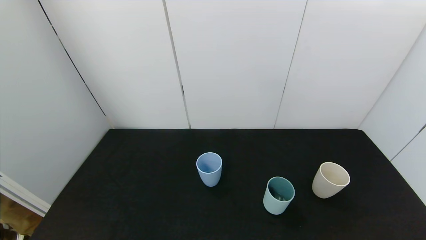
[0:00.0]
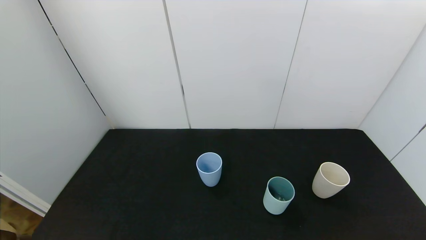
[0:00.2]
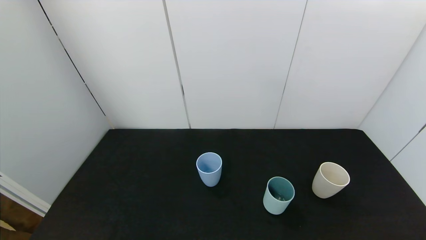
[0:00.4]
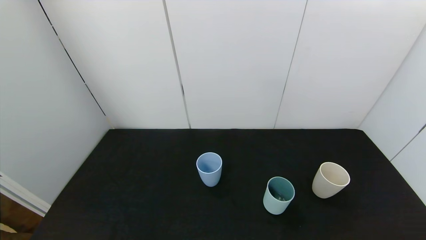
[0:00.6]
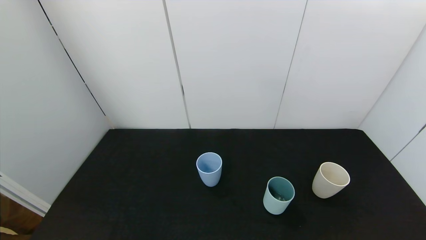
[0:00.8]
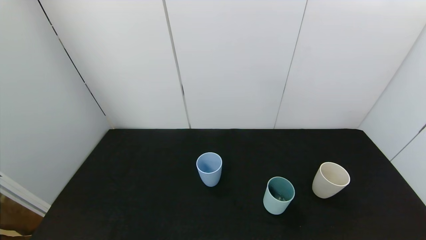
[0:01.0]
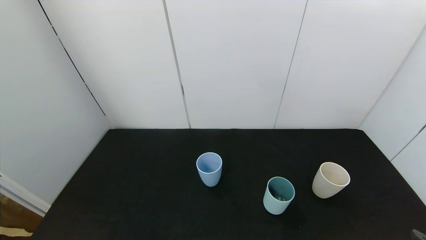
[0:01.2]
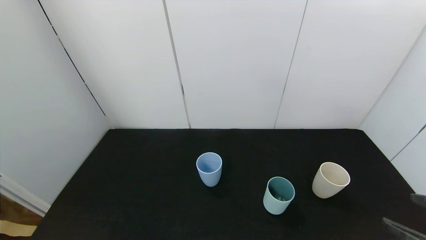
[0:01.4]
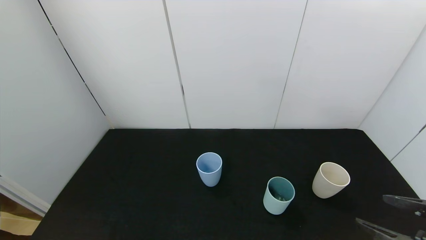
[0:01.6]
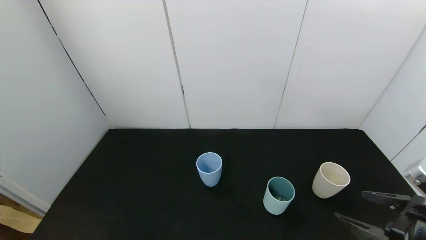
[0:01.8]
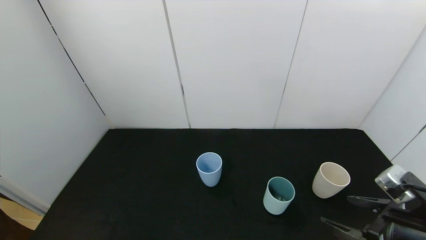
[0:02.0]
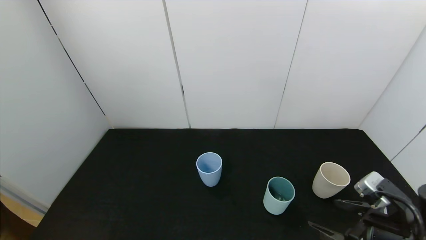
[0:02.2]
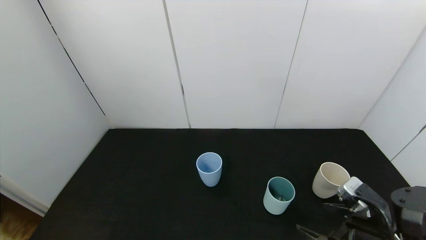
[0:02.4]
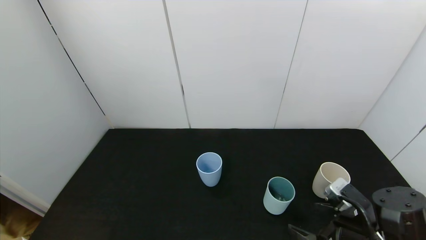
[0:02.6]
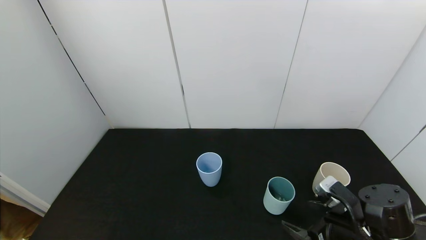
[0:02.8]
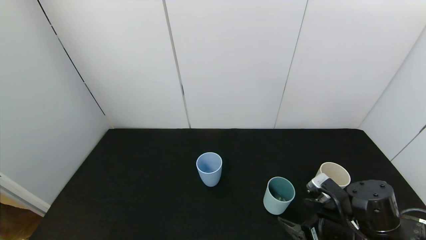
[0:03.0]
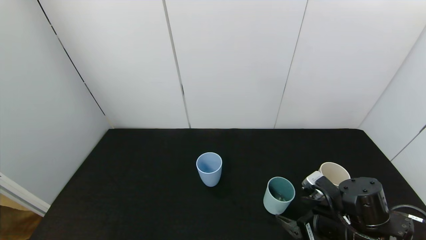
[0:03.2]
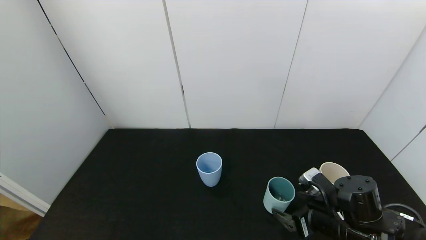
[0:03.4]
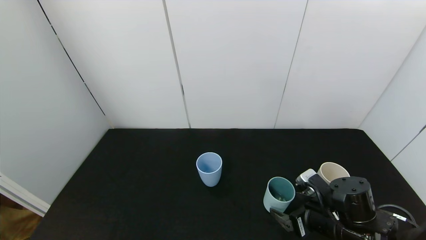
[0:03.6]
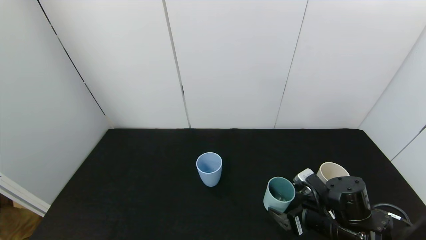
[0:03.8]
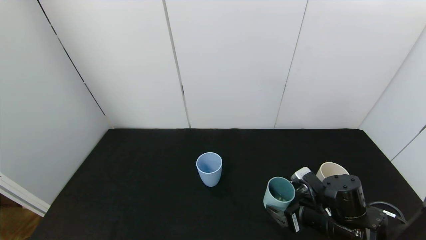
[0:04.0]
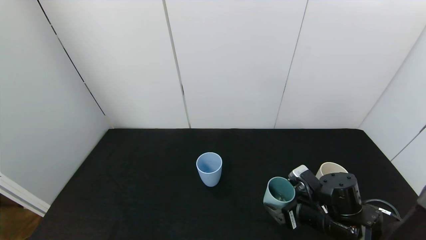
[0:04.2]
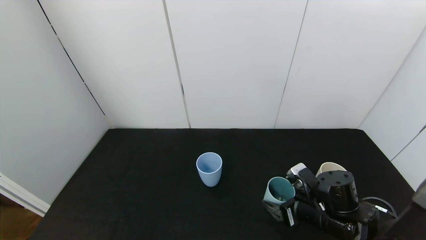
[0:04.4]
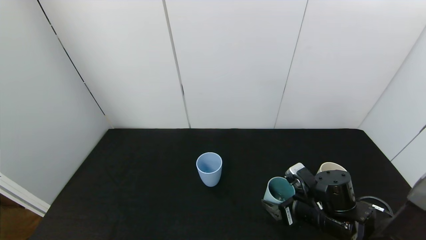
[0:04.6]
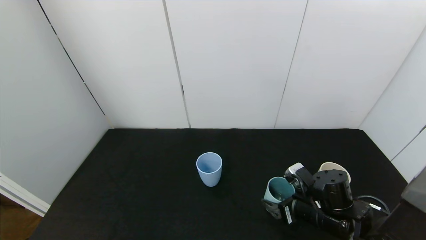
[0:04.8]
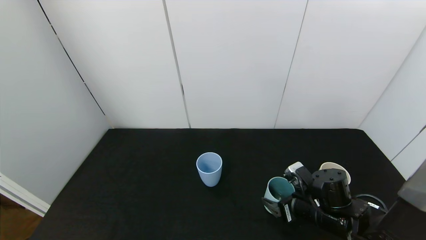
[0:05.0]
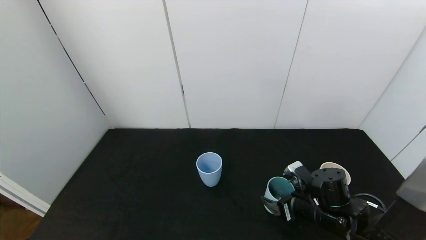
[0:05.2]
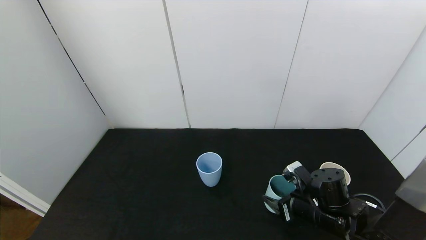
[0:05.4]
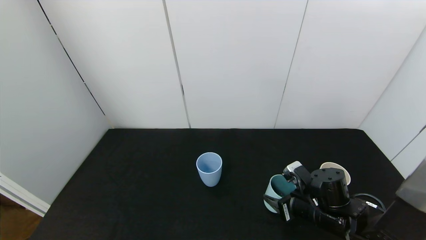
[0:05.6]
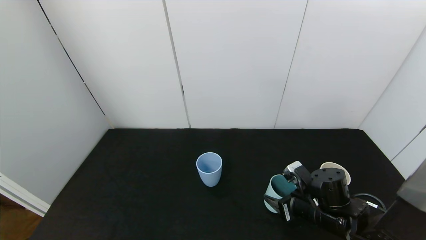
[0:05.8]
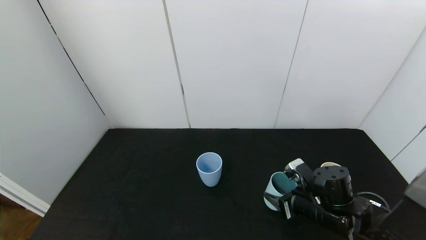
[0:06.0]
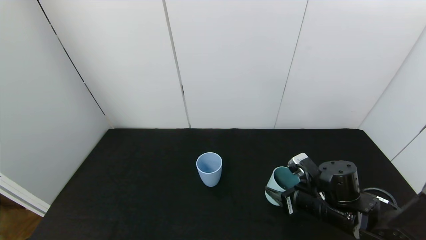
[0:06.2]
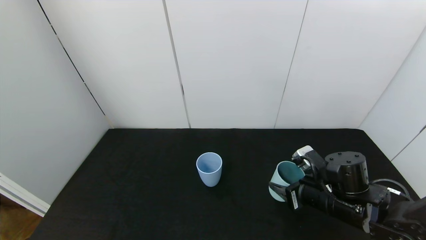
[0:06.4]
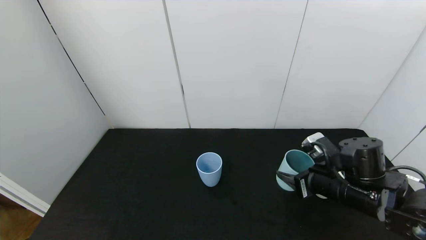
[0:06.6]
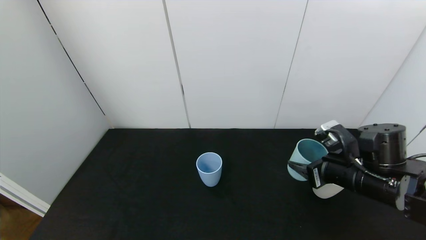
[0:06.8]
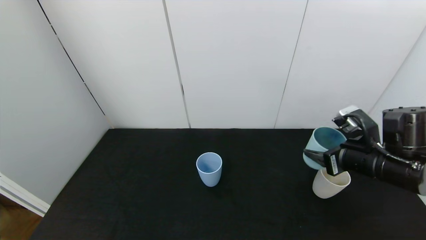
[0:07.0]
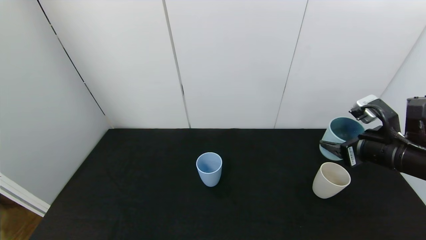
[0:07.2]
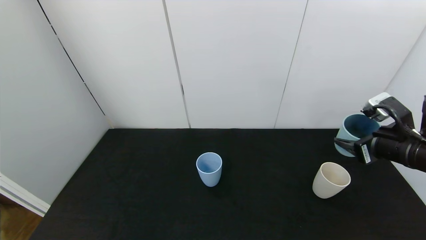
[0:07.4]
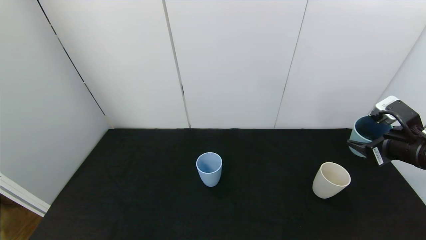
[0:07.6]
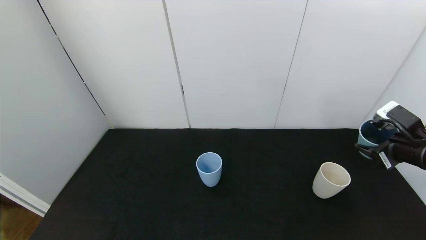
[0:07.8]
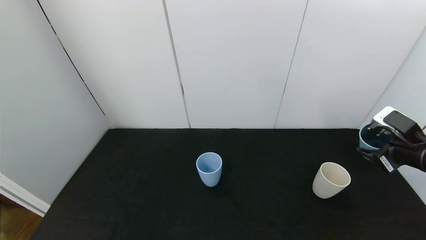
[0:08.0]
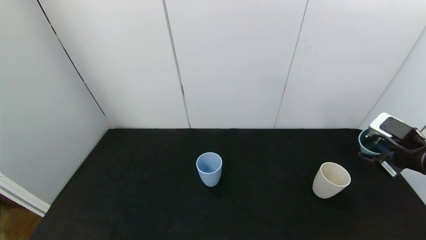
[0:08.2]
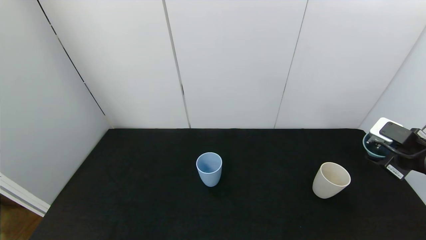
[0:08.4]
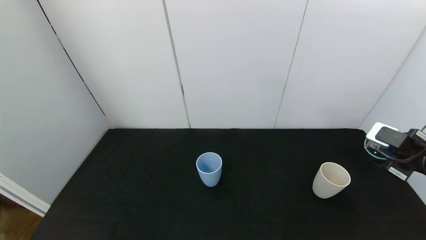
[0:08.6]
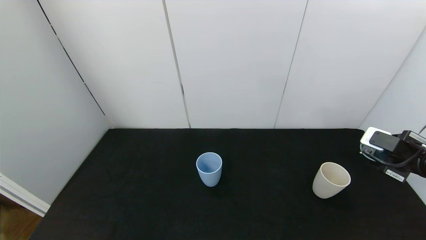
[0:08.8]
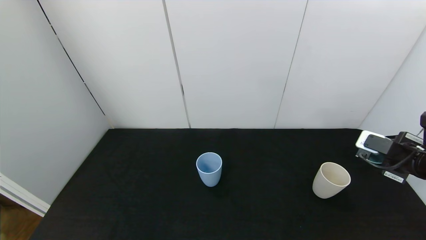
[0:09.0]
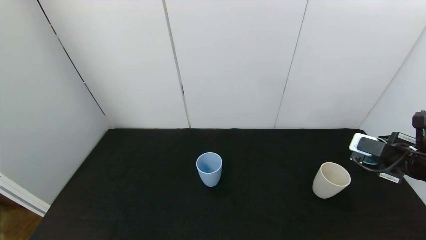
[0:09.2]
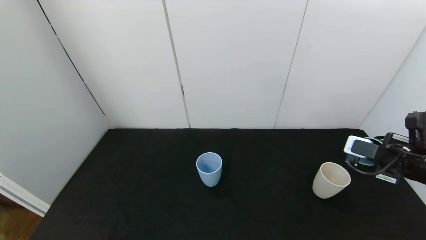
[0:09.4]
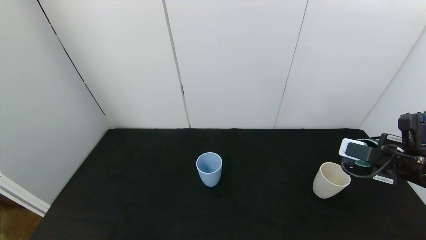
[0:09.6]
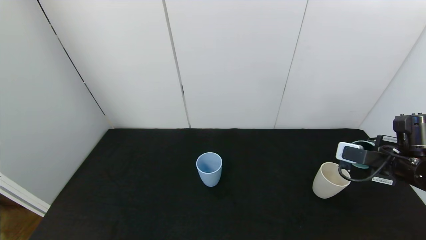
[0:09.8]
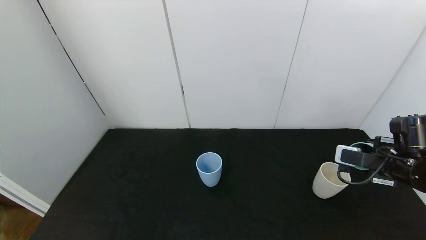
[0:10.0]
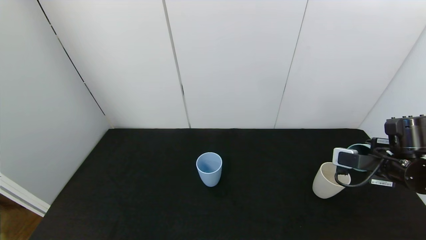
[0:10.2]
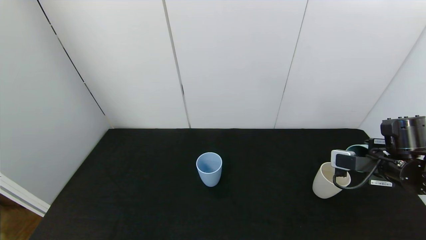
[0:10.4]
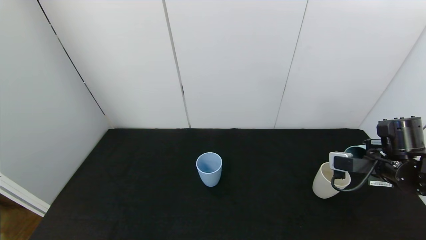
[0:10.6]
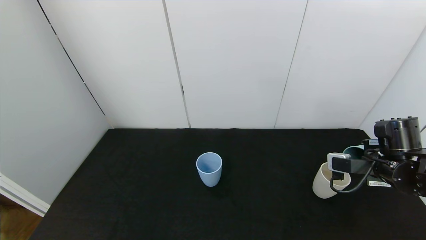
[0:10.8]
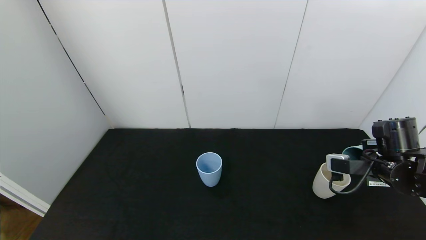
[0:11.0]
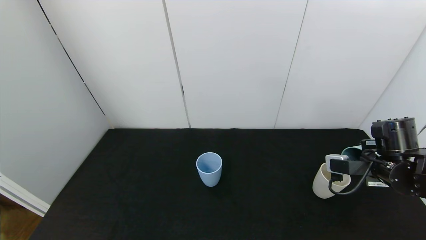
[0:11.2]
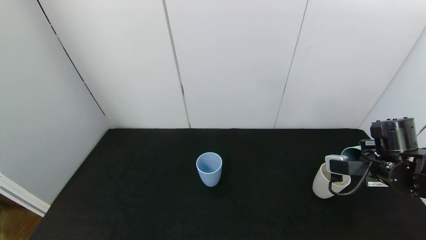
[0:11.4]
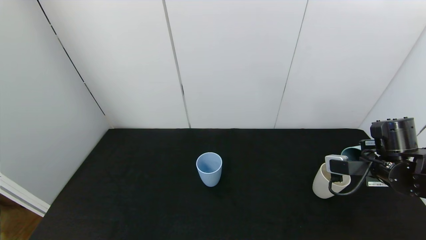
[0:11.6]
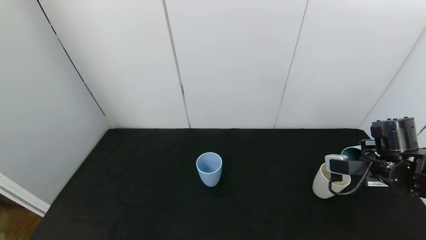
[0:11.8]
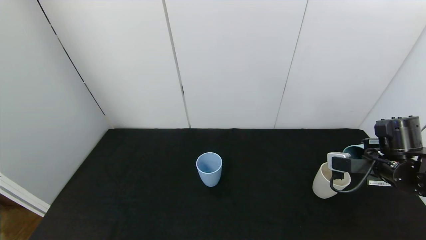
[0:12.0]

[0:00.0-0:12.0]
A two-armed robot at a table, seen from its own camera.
Task of the whole recording: use the gripper to pour the water into the other two cups on black table.
Step, 0:00.0 to 0:05.6: Grasp the green cup with the right gripper.
0:01.6 to 0:03.0: The right gripper heads downward, forward and to the left, covering roughly 15 cm.
0:03.0 to 0:04.4: The right gripper changes place by some 5 cm.
0:04.4 to 0:06.0: The right gripper closes.
0:06.0 to 0:07.6: The right gripper moves to the right and upward, roughly 20 cm.
0:10.4 to 0:12.0: The grippers stay close to where they were, moving slightly.

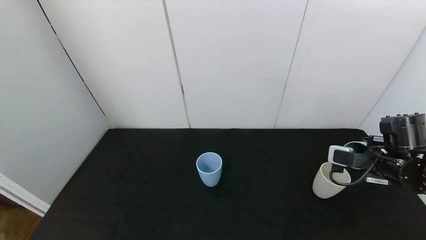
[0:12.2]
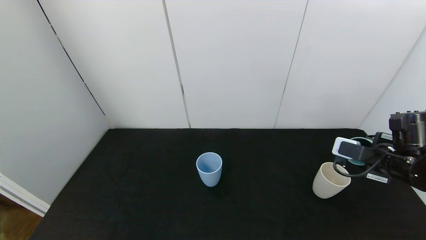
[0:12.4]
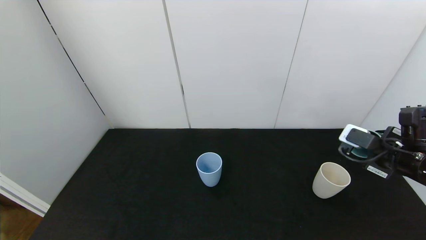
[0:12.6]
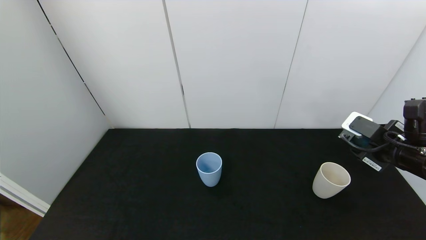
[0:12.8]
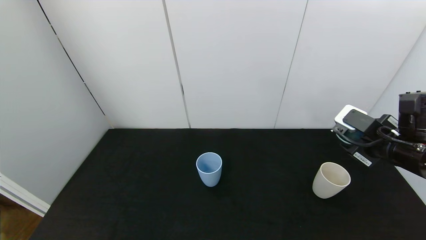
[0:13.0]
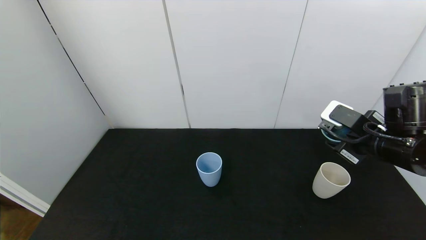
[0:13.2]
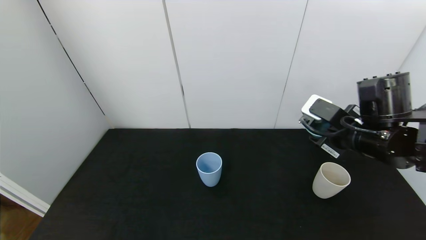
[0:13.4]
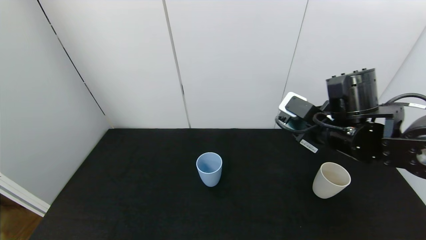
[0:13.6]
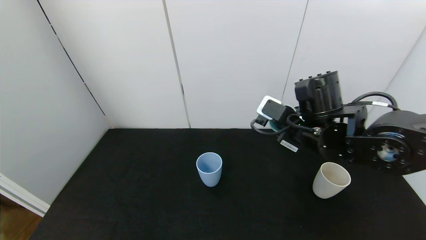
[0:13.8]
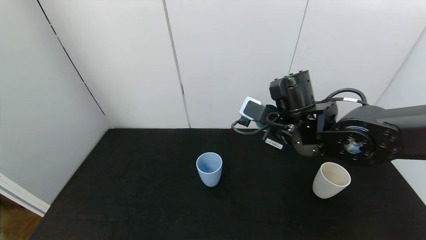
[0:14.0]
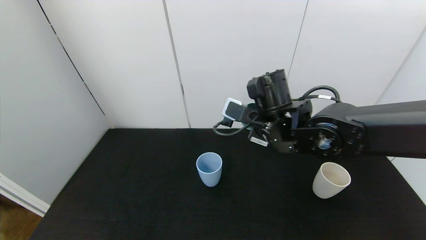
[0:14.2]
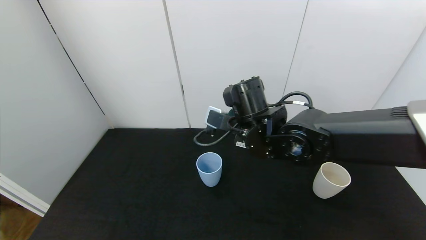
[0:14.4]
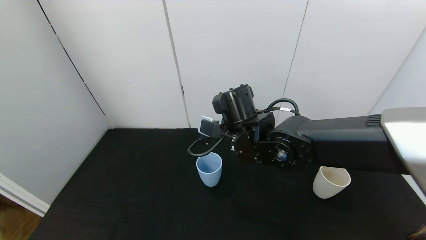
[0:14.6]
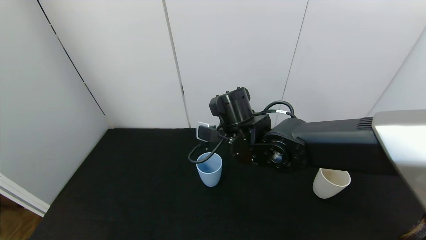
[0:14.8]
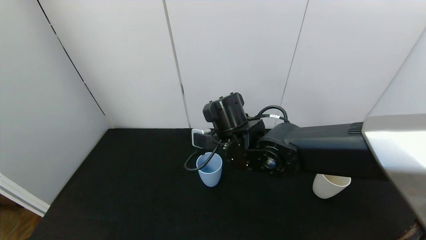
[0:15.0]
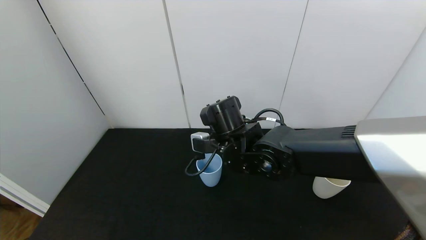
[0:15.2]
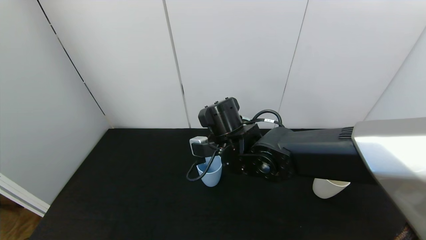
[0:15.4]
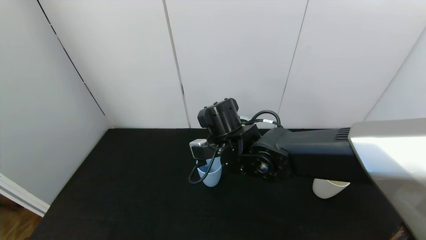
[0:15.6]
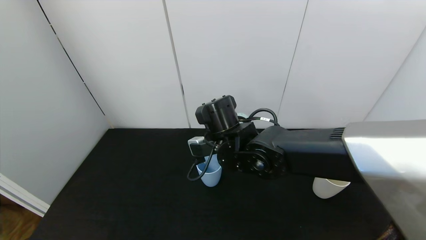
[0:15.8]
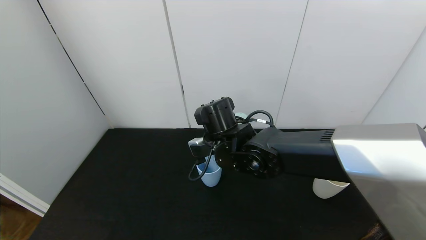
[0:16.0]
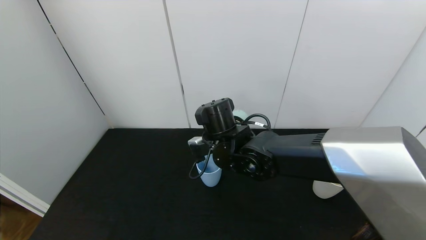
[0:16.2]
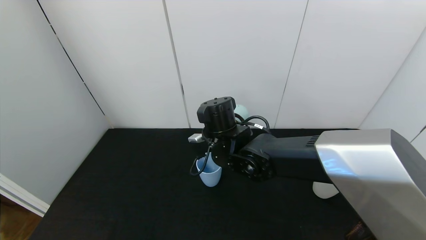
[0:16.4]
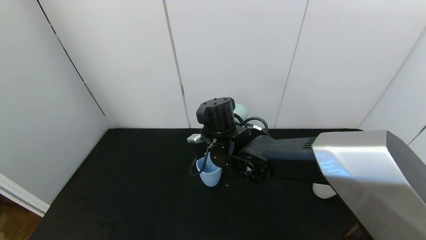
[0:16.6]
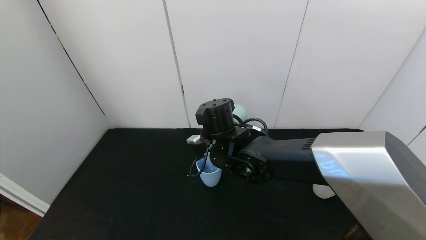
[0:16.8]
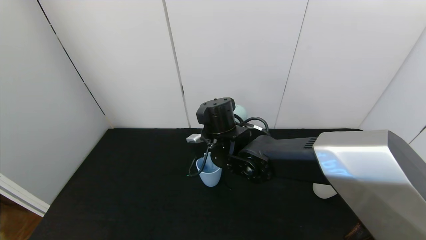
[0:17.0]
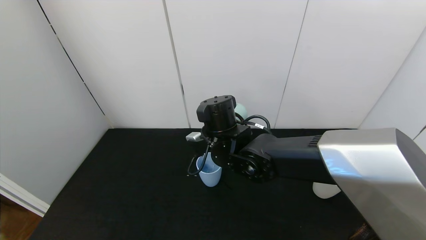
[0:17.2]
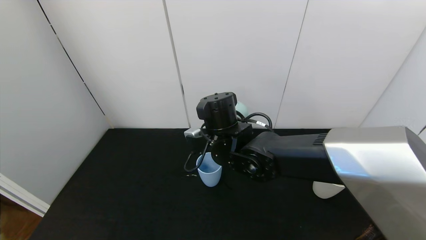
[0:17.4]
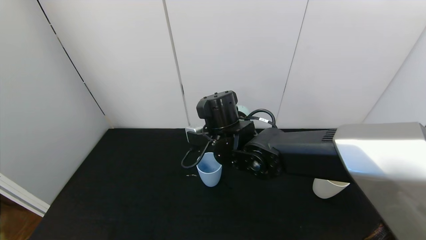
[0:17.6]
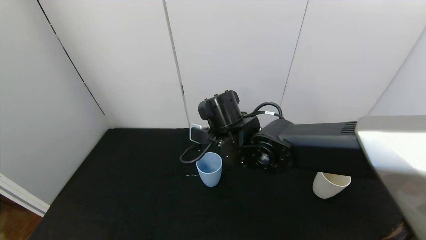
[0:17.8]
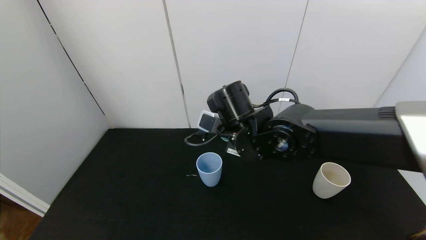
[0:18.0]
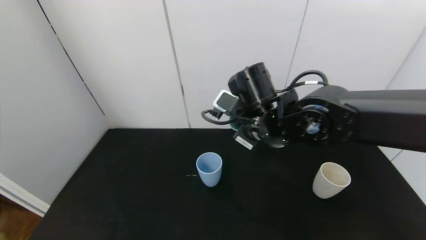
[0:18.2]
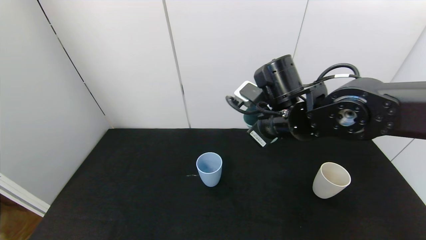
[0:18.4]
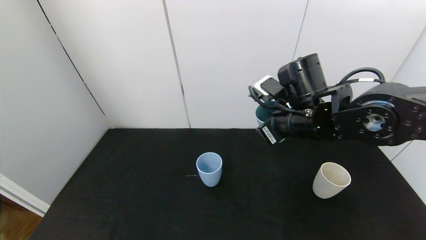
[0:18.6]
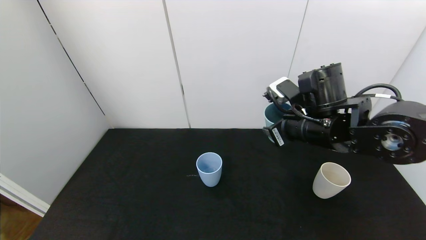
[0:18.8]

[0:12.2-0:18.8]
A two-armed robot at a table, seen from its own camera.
Task of the whole recording: use the gripper to pour the water into the other two cups on black table.
Step, 0:12.4 to 0:17.6: Pour water from green cup to blue cup with the right gripper.
0:12.2 to 0:13.8: The right gripper is displaced to the left by some 15 cm.
0:13.8 to 0:15.4: The right gripper shifts roughly 15 cm to the left.
0:15.4 to 0:17.2: The grippers stay close to where they were, moving slightly.
0:17.2 to 0:18.8: The right gripper is displaced to the right by roughly 15 cm.
